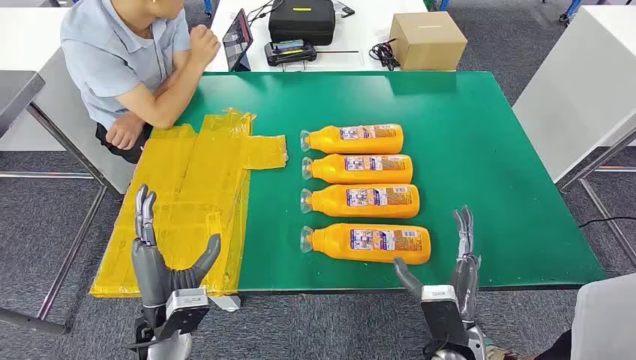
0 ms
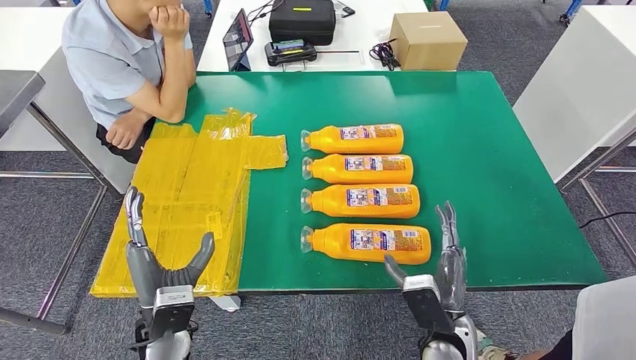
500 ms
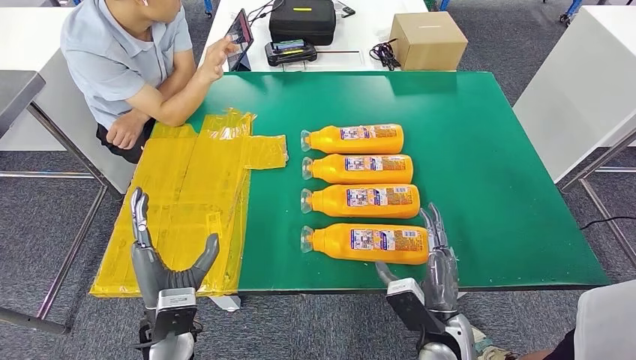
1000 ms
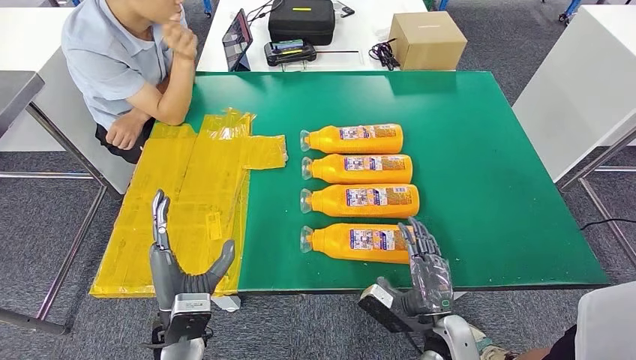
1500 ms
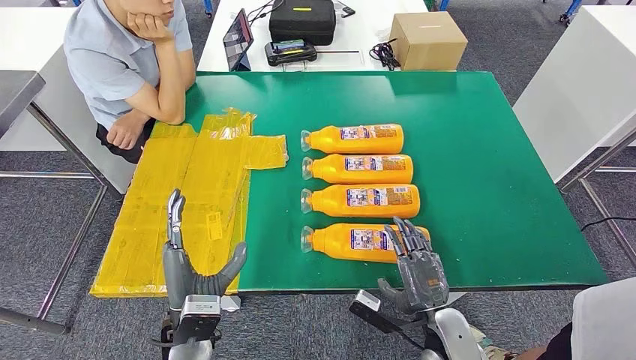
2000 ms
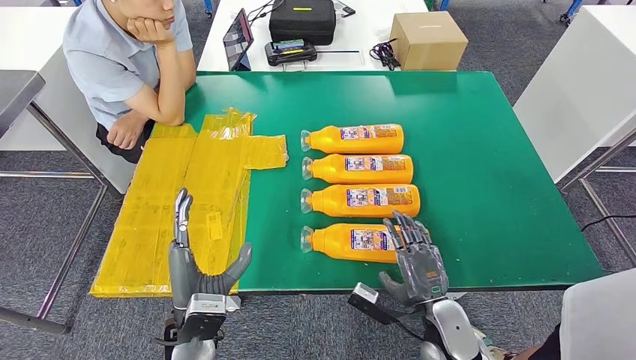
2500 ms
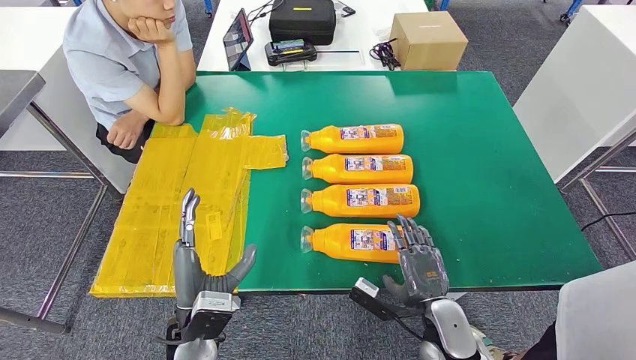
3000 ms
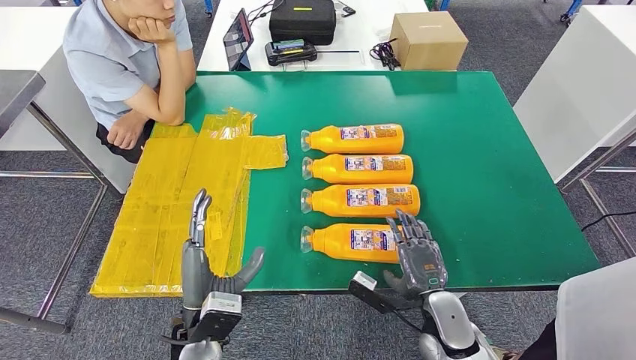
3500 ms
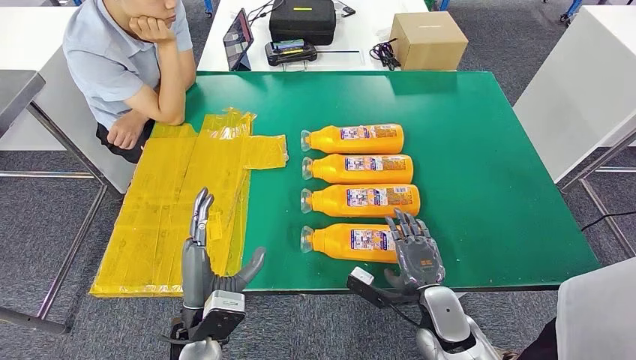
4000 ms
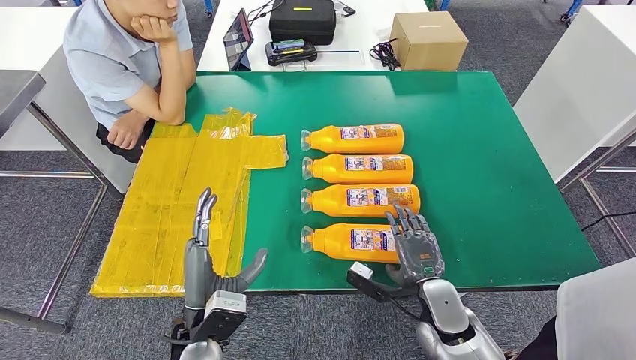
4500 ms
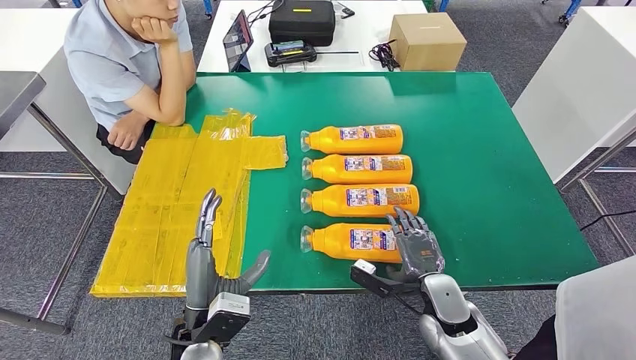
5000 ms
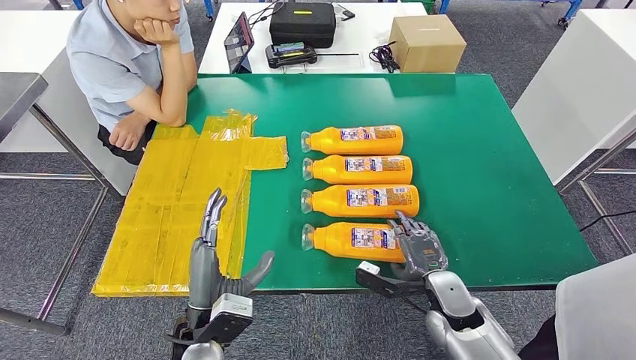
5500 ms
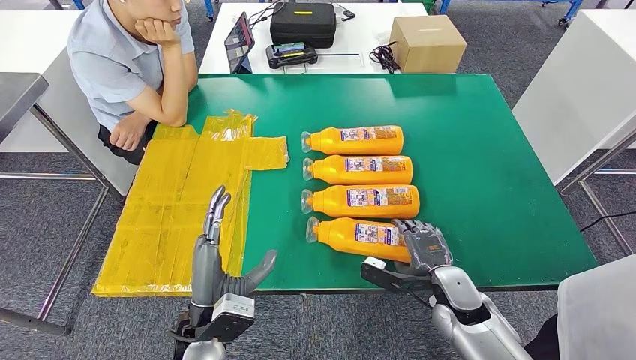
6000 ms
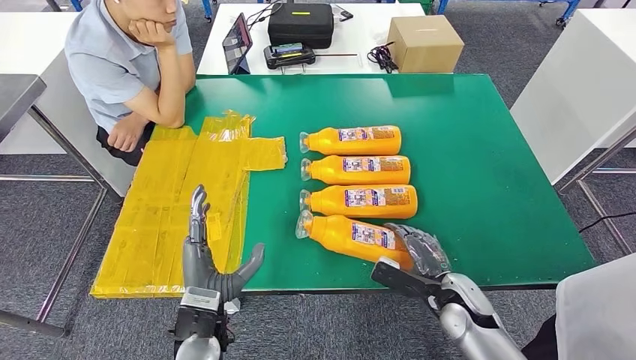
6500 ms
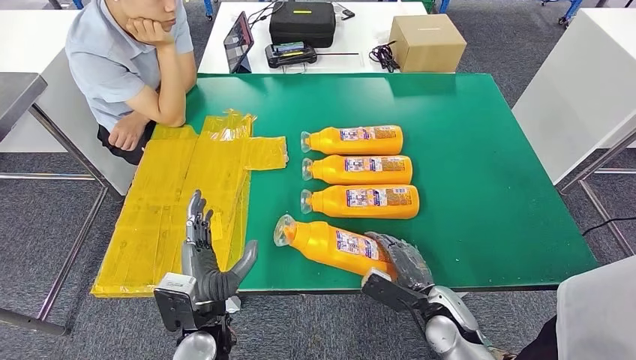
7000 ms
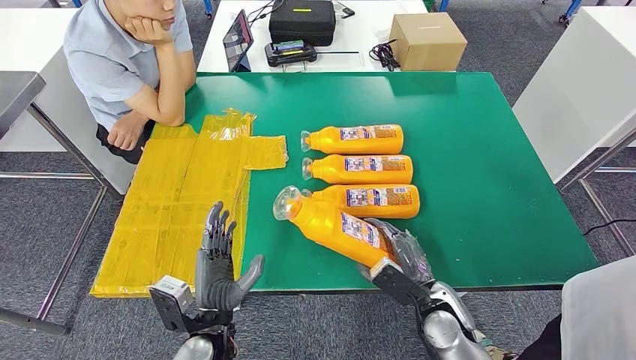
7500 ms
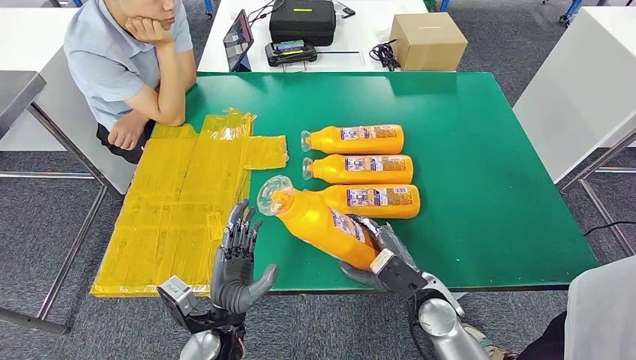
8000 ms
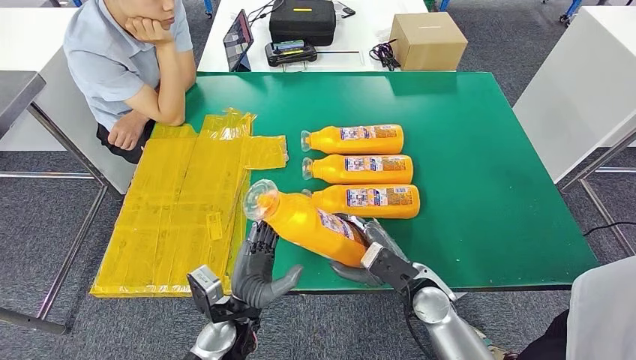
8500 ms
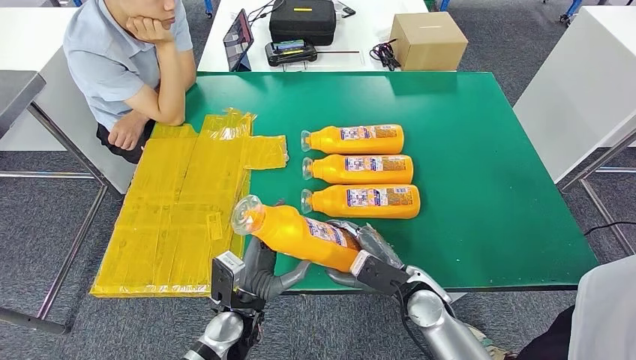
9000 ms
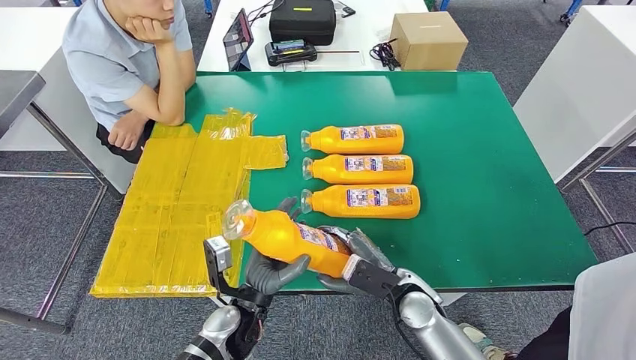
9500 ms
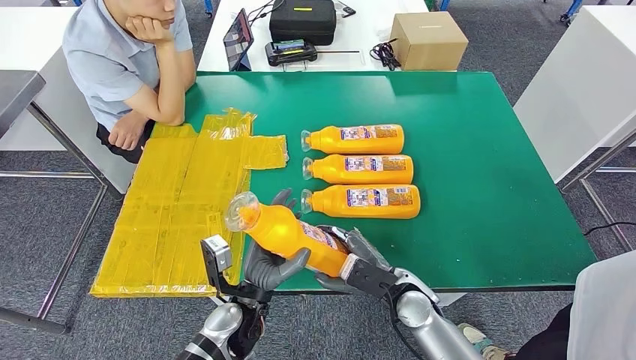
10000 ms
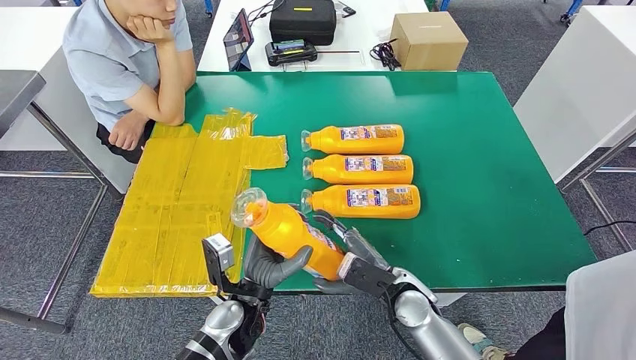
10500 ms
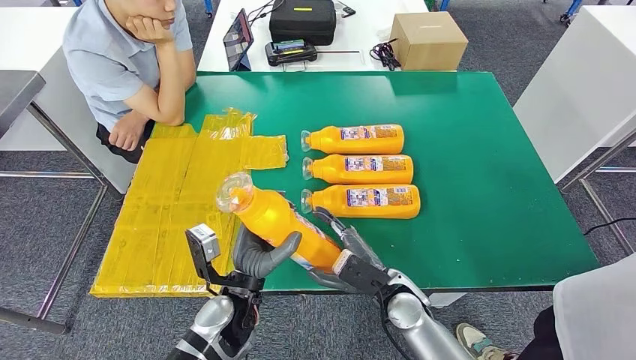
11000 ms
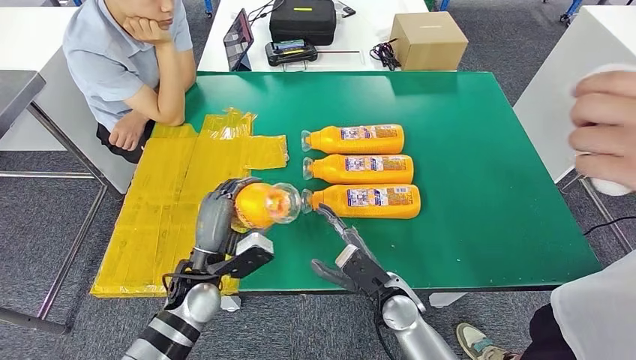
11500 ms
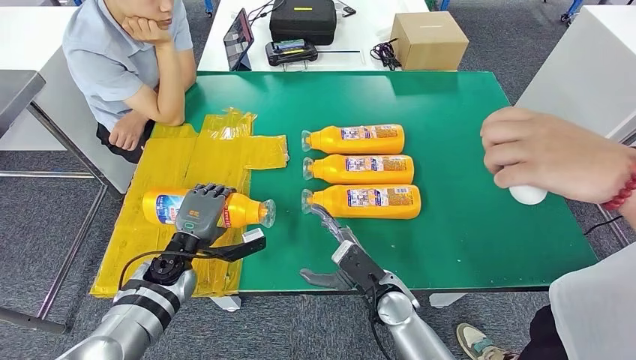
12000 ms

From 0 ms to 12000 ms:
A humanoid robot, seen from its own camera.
Step, from 0 ms to 7500 ms: Take the bottle from the table.
From 2000 ms to 4000 ms: There are only small adjustments of the hands.
From 4000 ms to 6000 ms: The right hand moves approximately 5 cm.
From 6000 ms to 8000 ms: The right hand goes approximately 5 cm to the left.
From 8000 ms to 10000 ms: The left hand ends up roughly 5 cm from where it was.
From 10000 ms to 12000 ms: The left hand is displaced to the left and forward by roughly 15 cm.

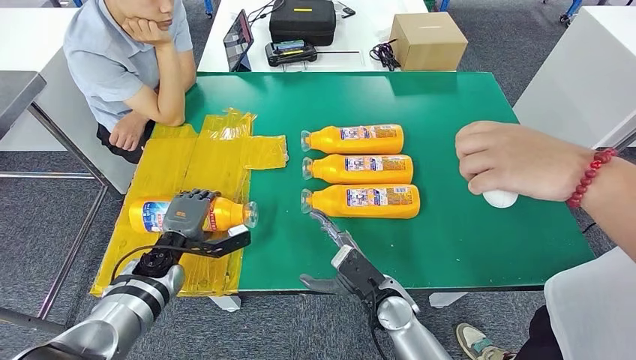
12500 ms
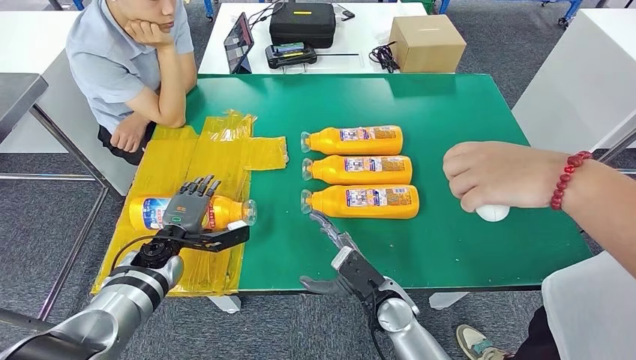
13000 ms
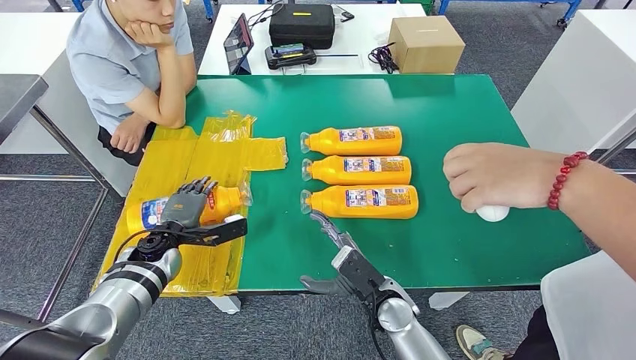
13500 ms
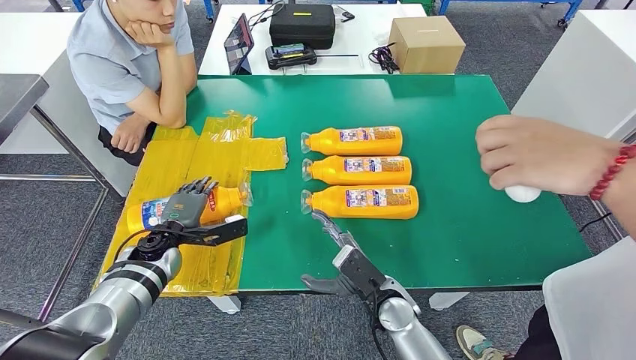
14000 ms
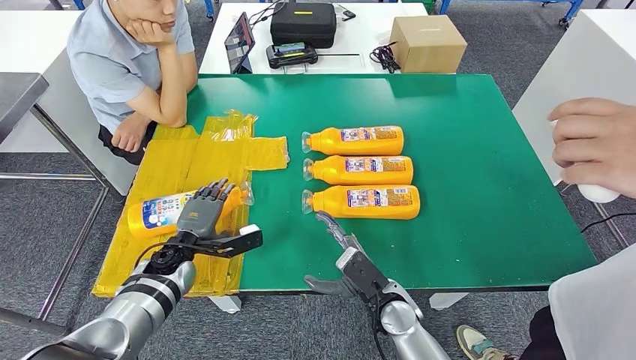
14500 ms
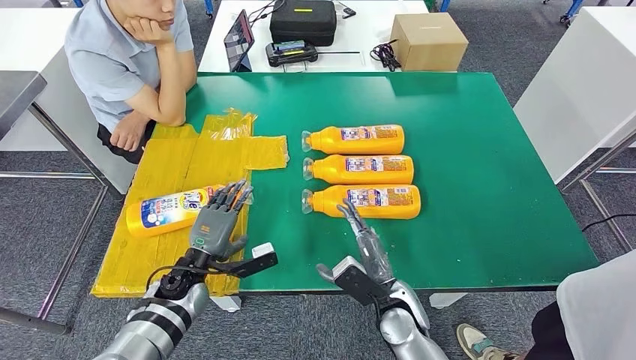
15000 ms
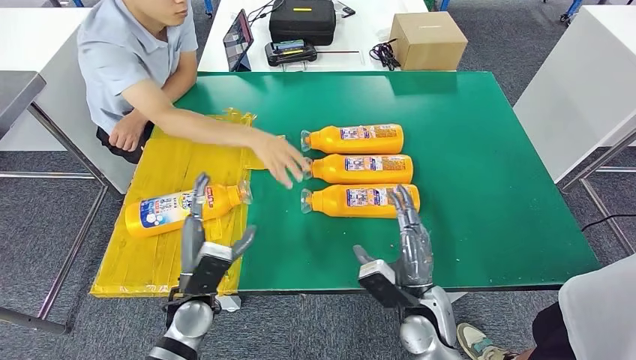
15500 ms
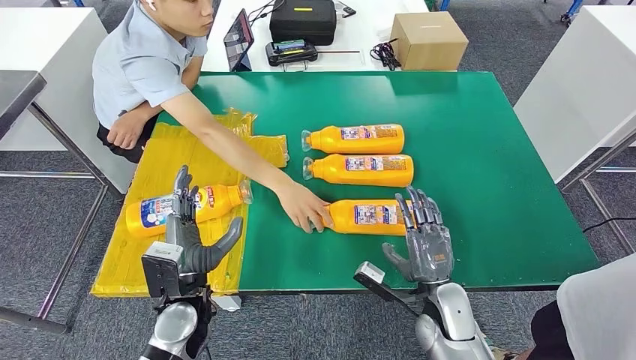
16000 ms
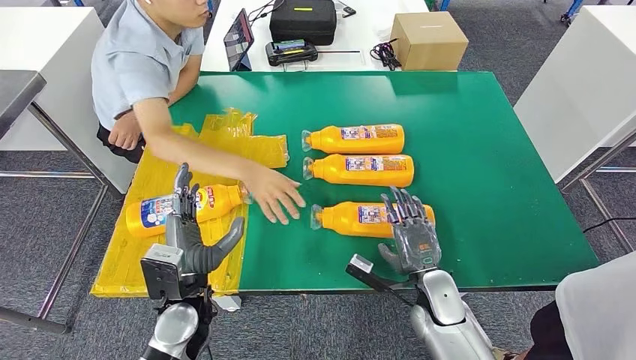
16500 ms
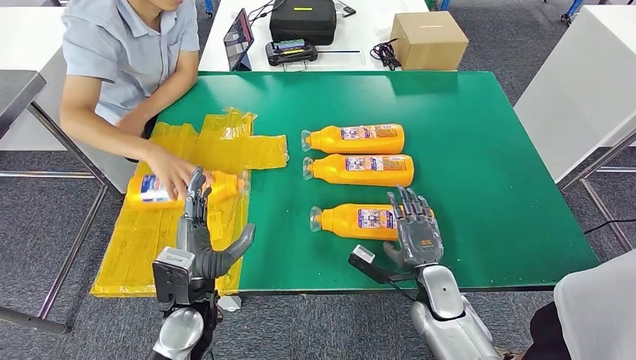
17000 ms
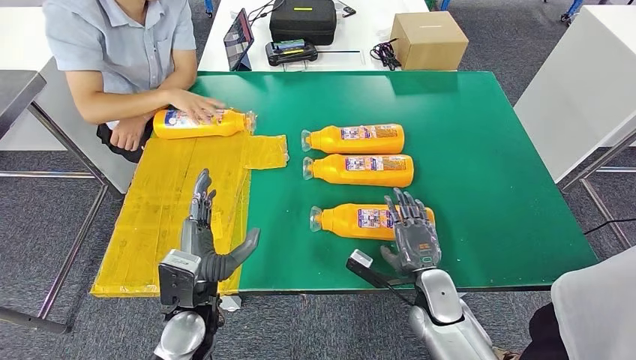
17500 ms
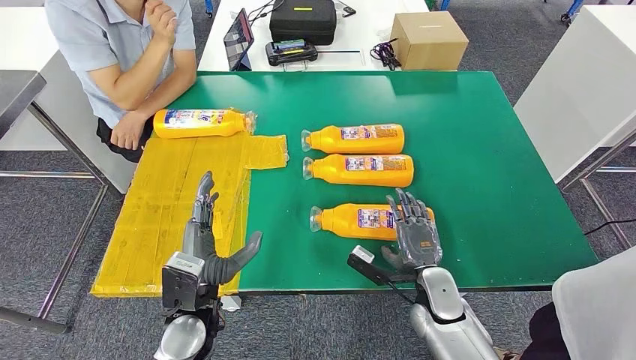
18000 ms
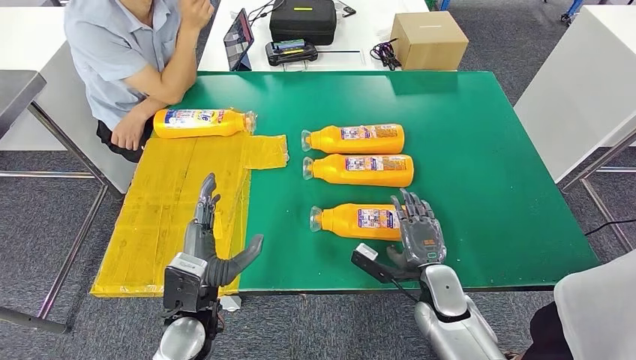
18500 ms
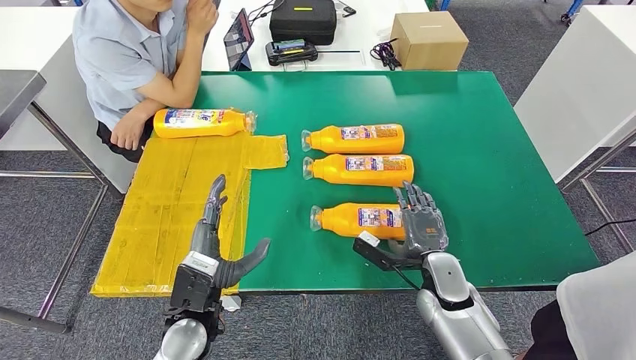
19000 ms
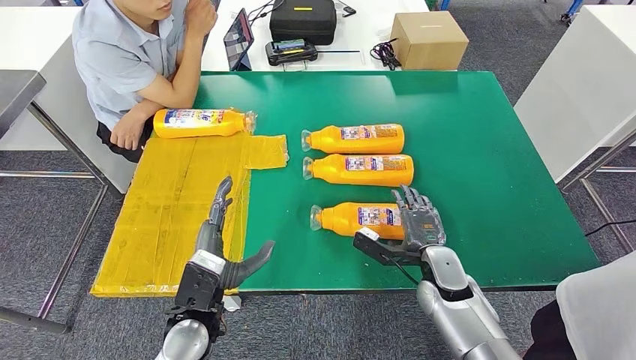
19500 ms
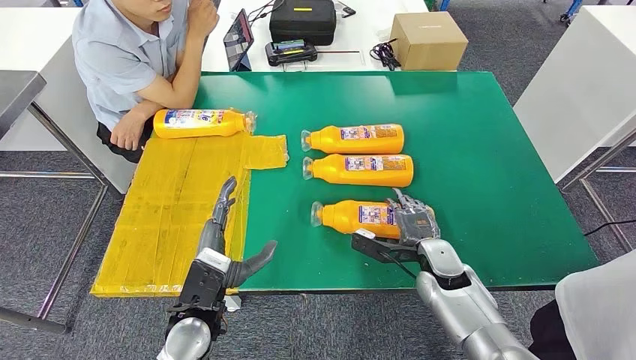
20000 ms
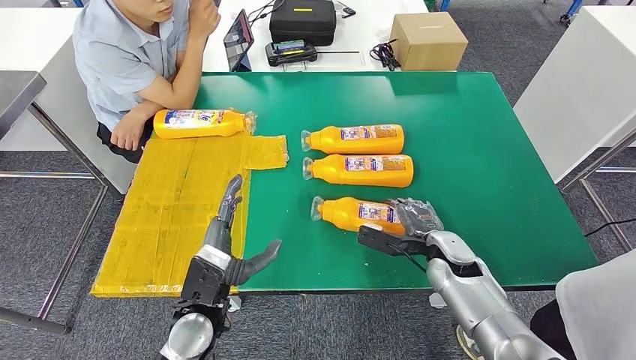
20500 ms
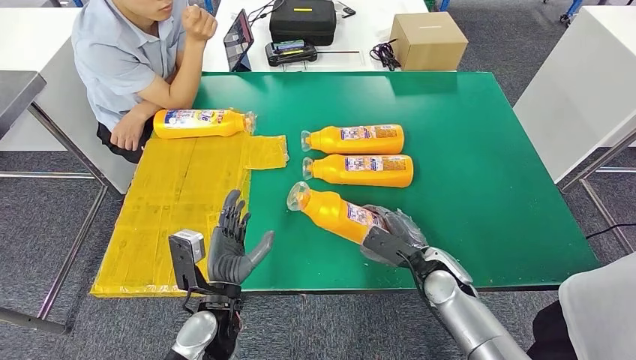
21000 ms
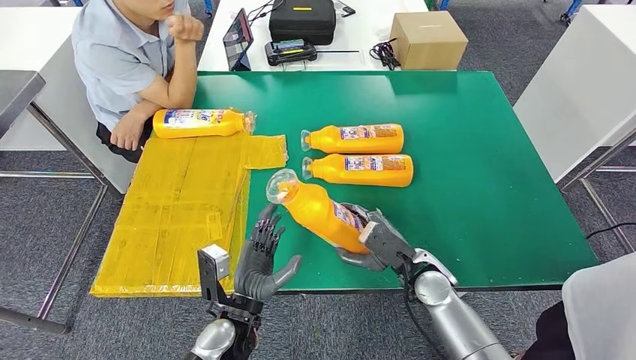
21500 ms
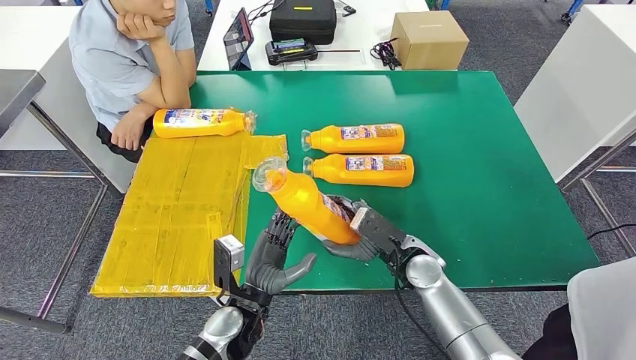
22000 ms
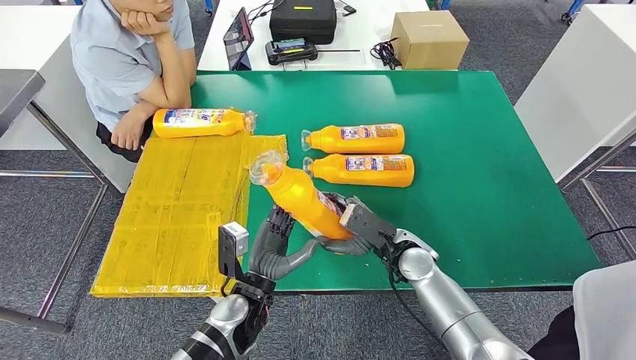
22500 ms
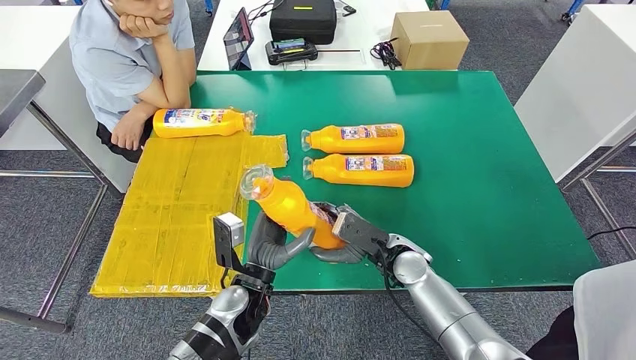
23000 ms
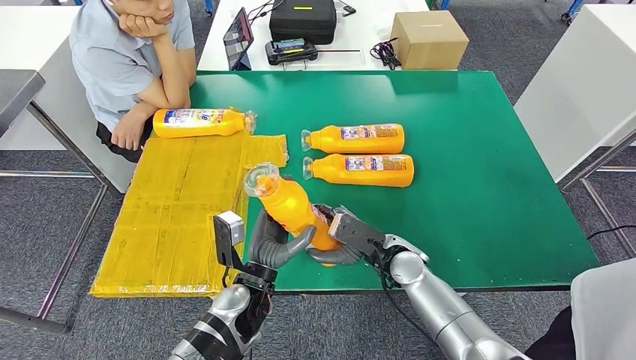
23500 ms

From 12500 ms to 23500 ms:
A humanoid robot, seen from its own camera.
Step, from 13500 ms to 21500 ms: Pick up the bottle from the table.
From 12500 ms to 14500 ms: The hands make only small movements.
From 16000 ms to 18000 ms: The hands stay close to where they were, moving slightly.
From 18000 ms to 20000 ms: The right hand changes place by roughly 5 cm.
From 20000 ms to 21500 ms: The left hand shifts about 5 cm to the right and downward.
From 21500 ms to 23500 ms: The right hand moves approximately 5 cm. The left hand moves some 5 cm.
